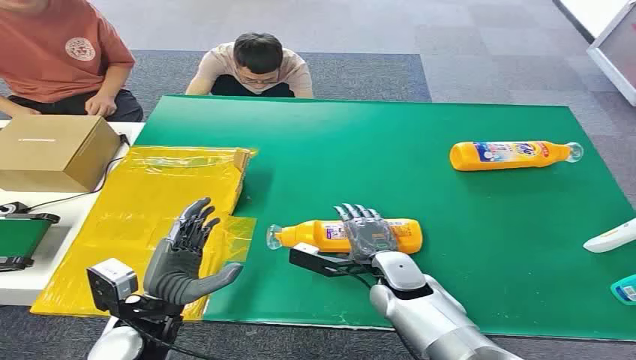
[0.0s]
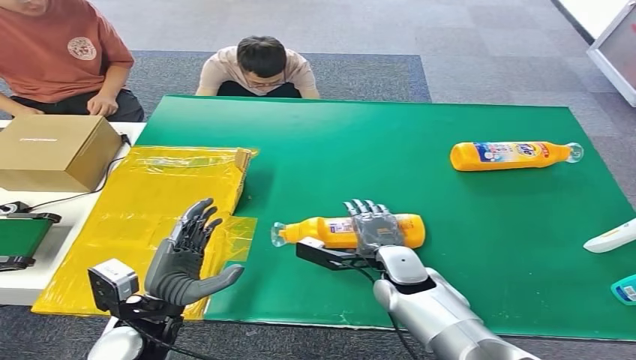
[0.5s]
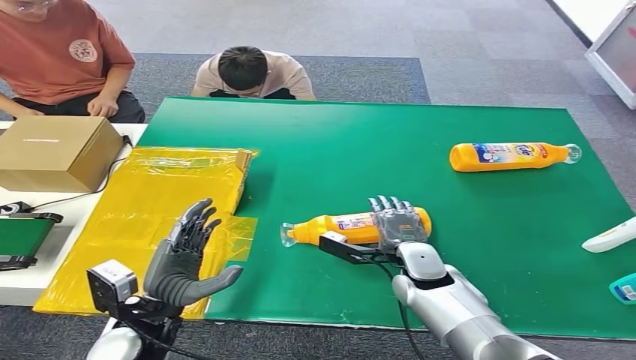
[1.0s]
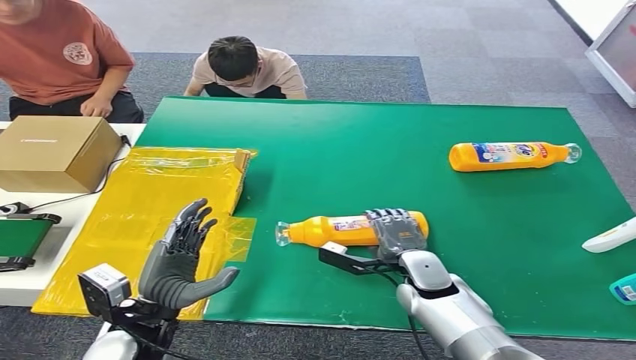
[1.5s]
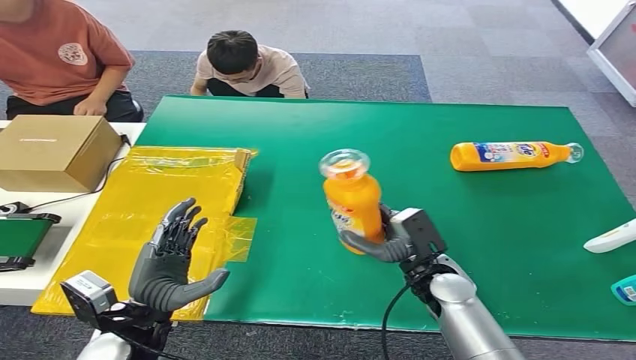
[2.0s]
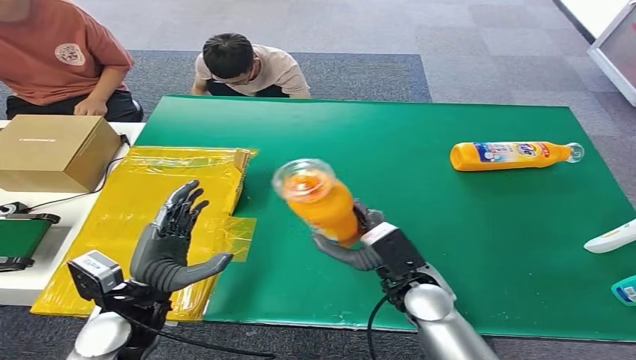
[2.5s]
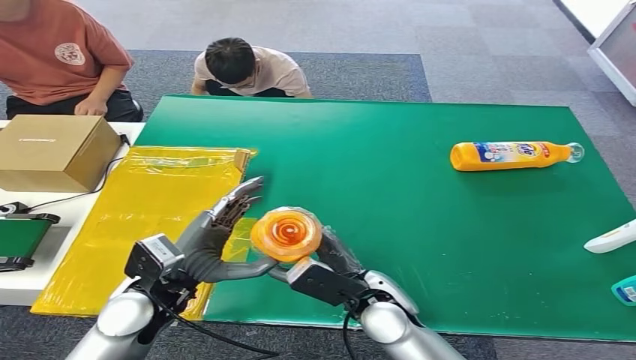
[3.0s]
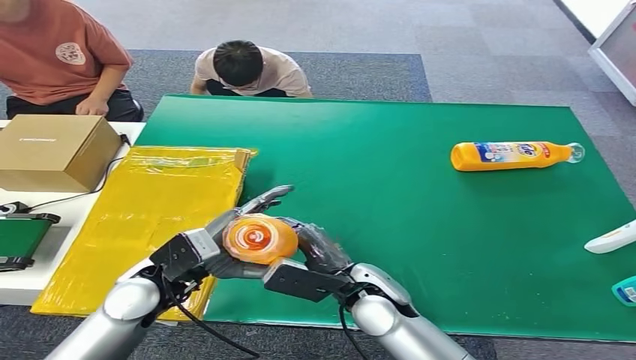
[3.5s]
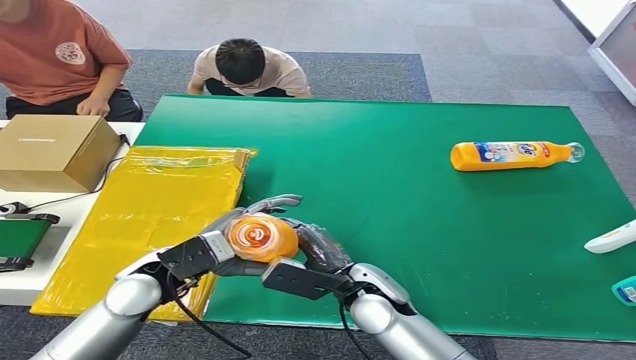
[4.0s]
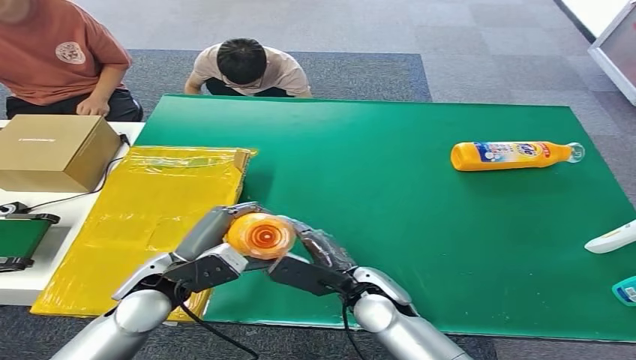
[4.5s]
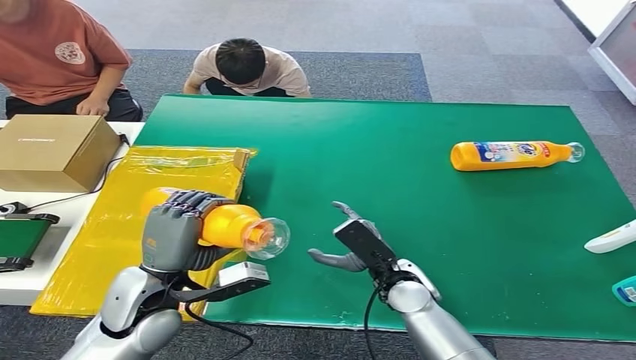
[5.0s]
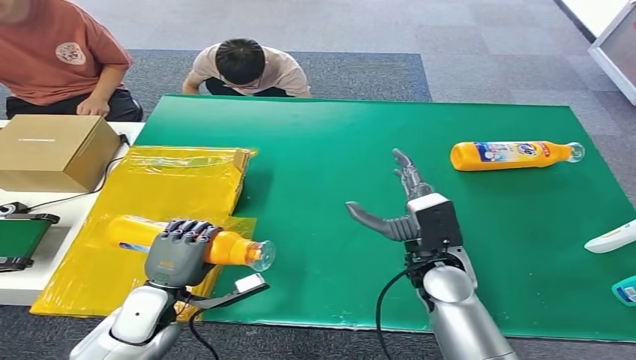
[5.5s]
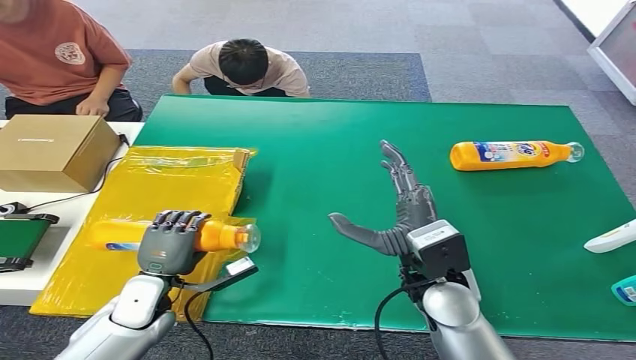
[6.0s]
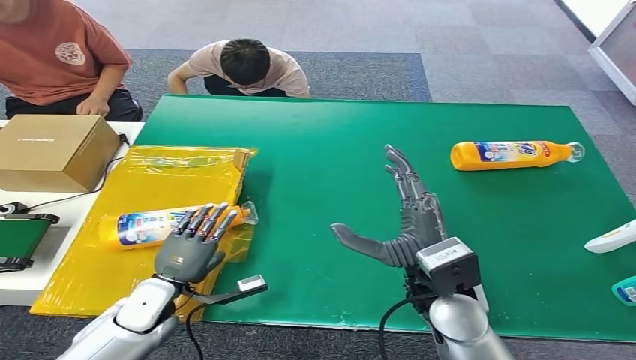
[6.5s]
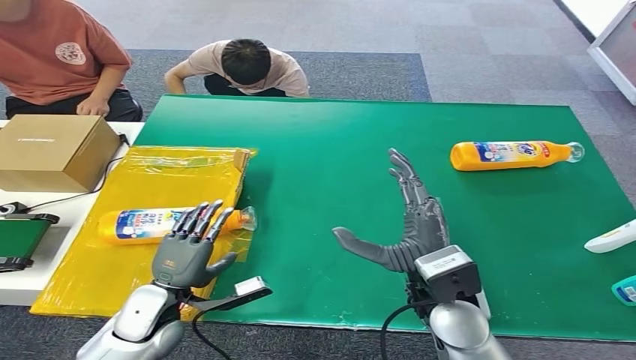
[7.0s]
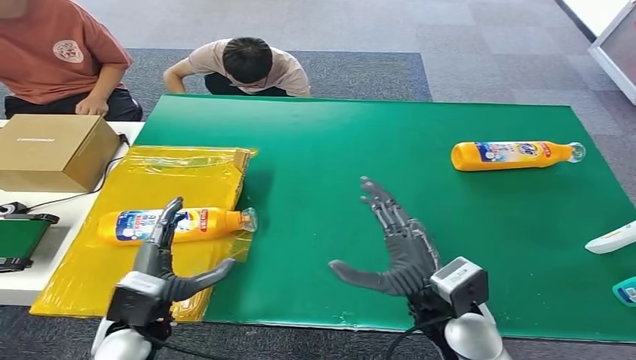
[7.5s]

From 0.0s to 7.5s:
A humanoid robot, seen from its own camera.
Step, from 0.0s to 2.0s: Pick up the bottle from the table.
Step, from 2.5s to 7.0s: Turn the bottle to the front side.
From 4.0s to 5.5s: The right hand heads to the right, covering about 10 cm, while the left hand travels downward by approximately 10 cm.
From 5.5s to 7.5s: The left hand ends up about 5 cm from where it was. The right hand moves backward, about 5 cm.
